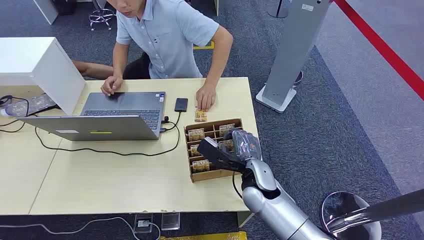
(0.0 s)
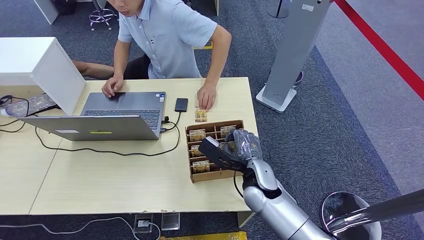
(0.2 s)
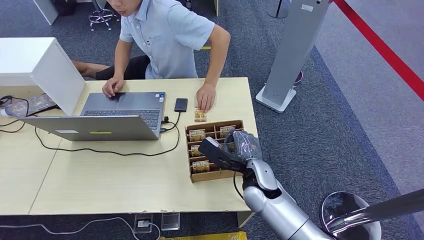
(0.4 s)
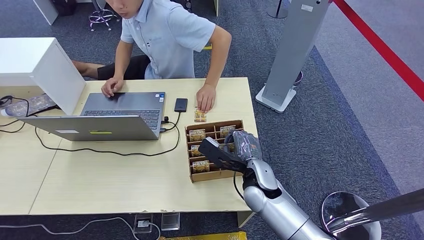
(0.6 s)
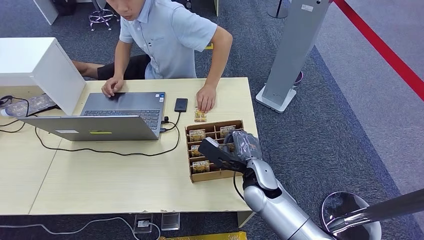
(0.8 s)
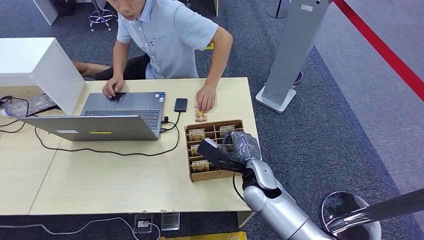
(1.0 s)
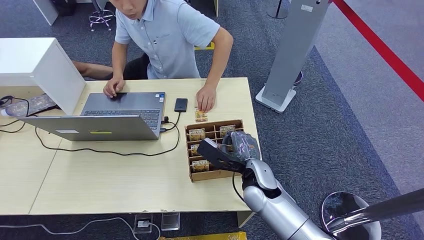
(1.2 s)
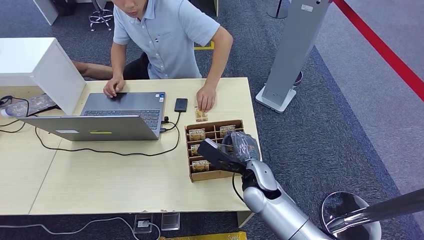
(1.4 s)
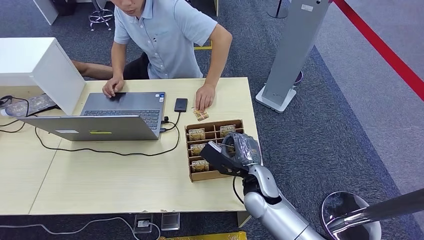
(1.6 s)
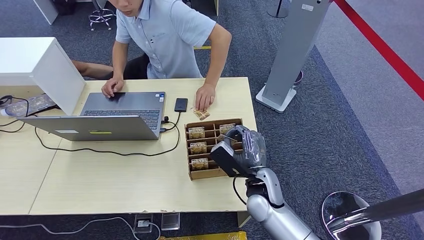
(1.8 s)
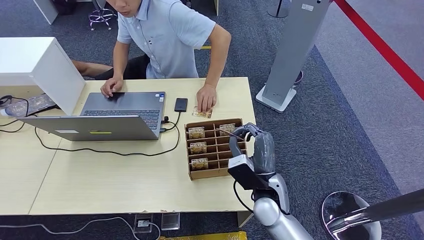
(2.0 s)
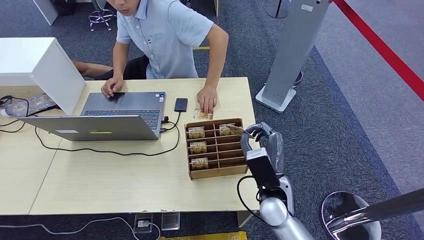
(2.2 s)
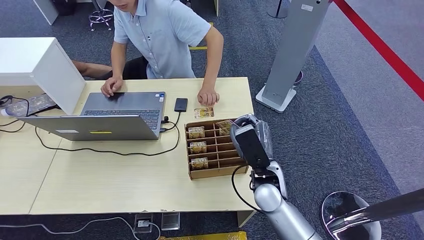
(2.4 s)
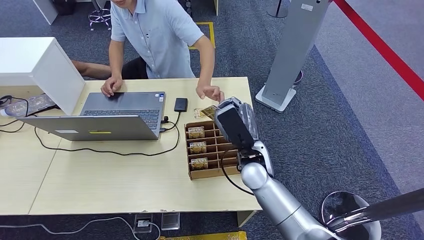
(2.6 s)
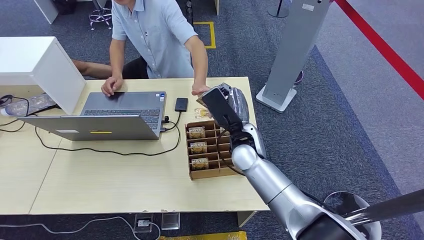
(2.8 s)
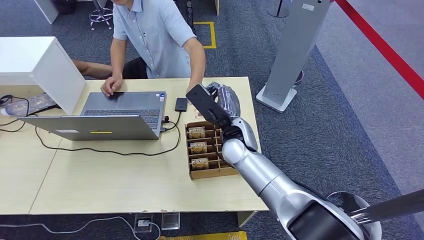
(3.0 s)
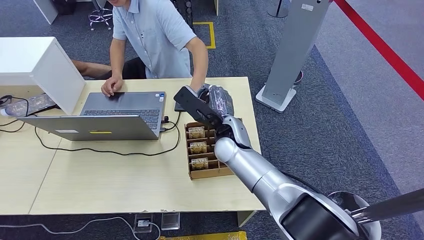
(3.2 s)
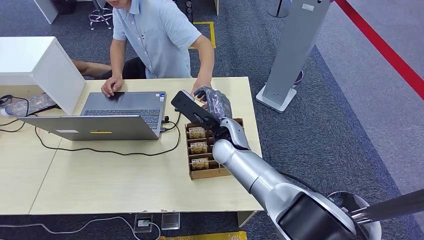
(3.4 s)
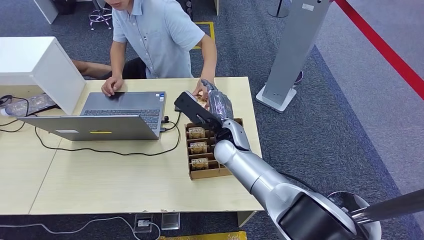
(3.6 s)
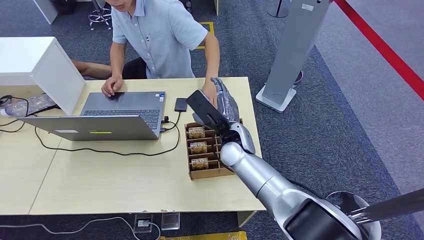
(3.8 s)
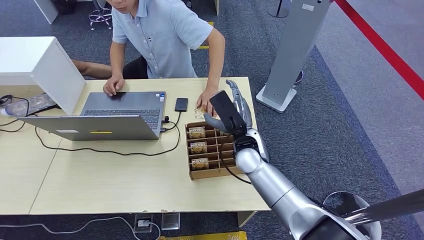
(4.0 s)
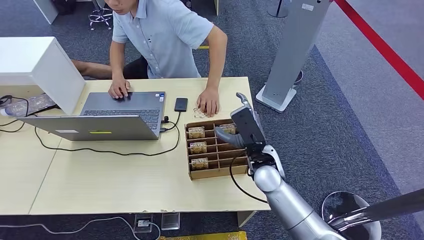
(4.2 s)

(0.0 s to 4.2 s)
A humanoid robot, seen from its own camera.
Step, 0.0 s - 2.0 s: Pick up the room card from the card holder.
Step, 3.0 s - 4.0 s: Hand the room card to the target.
1.4 s - 2.8 s: The right hand moves upward and forward, roughly 10 cm.
2.8 s - 4.2 s: The right hand changes place by roughly 5 cm.
